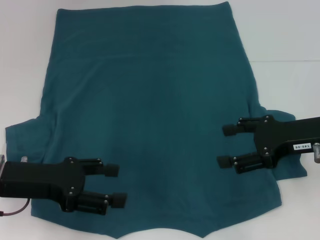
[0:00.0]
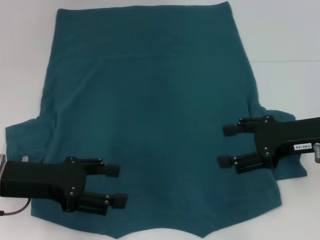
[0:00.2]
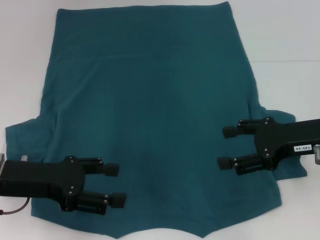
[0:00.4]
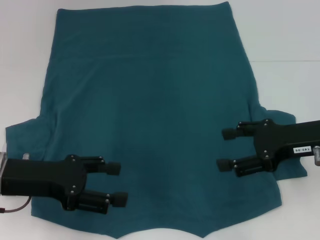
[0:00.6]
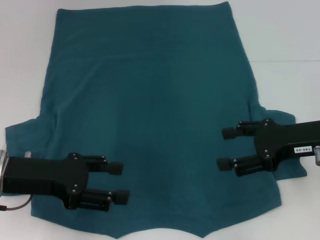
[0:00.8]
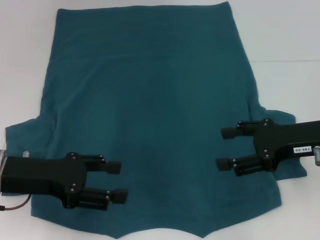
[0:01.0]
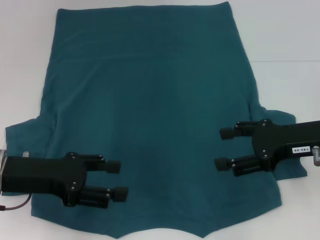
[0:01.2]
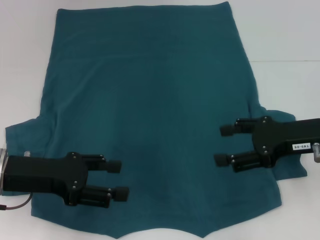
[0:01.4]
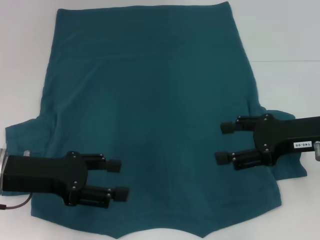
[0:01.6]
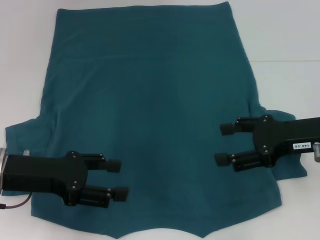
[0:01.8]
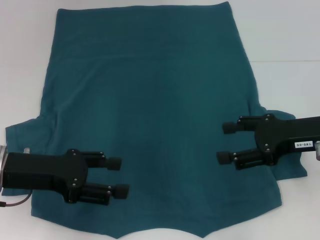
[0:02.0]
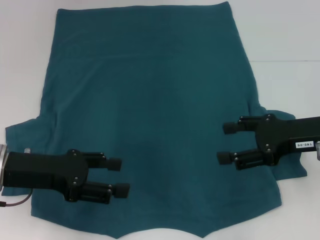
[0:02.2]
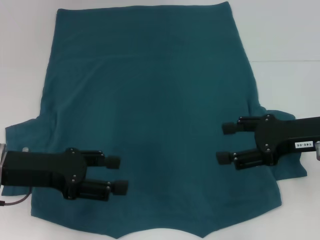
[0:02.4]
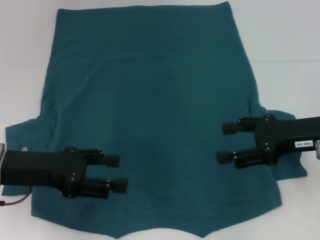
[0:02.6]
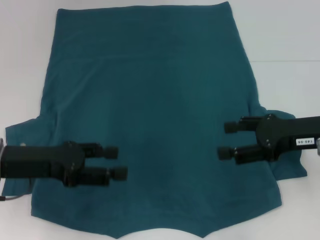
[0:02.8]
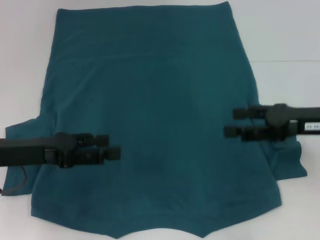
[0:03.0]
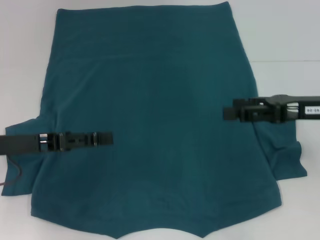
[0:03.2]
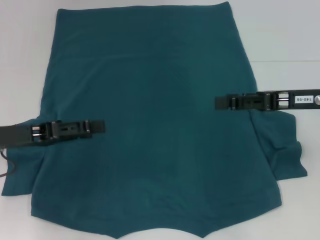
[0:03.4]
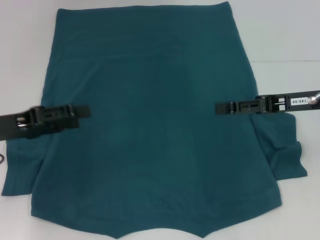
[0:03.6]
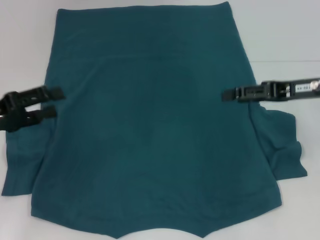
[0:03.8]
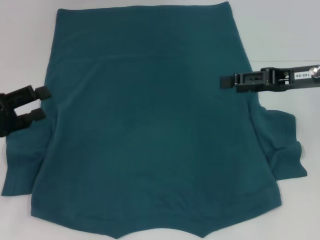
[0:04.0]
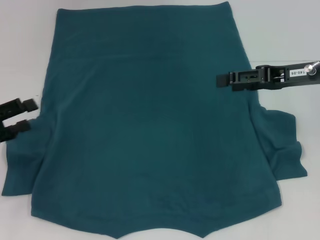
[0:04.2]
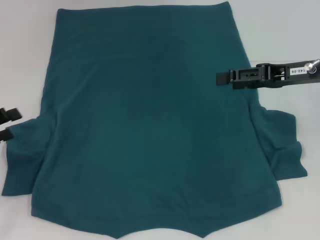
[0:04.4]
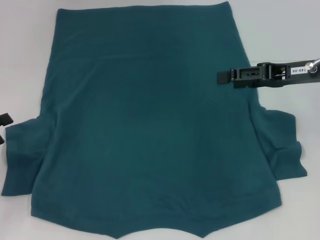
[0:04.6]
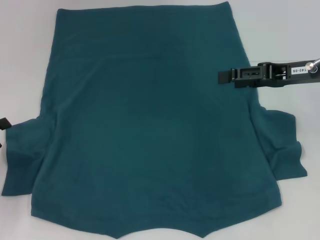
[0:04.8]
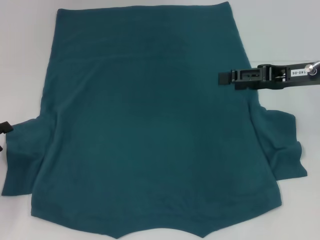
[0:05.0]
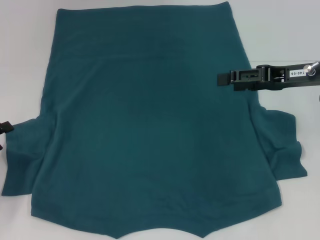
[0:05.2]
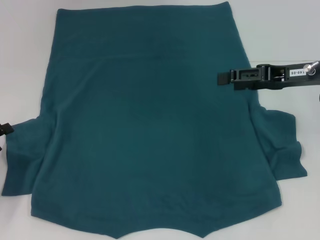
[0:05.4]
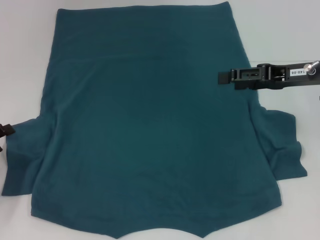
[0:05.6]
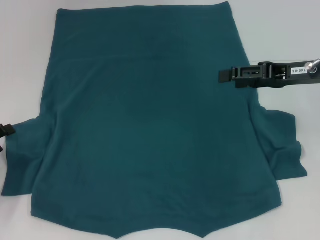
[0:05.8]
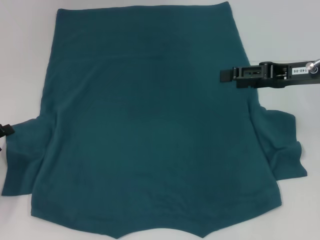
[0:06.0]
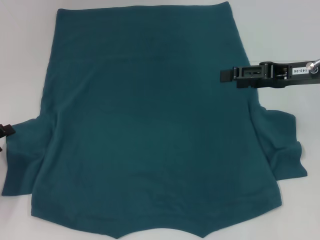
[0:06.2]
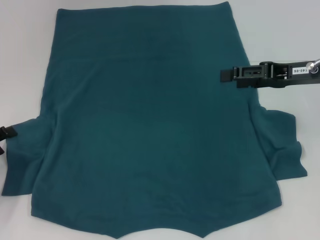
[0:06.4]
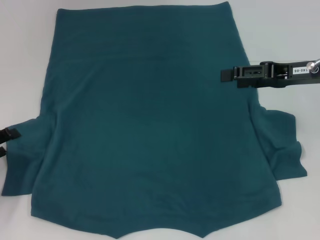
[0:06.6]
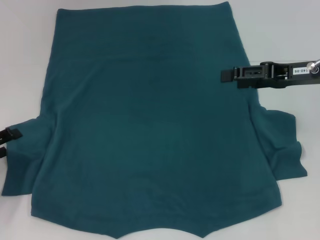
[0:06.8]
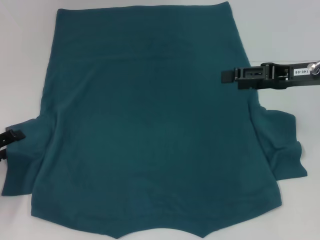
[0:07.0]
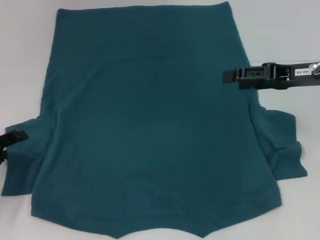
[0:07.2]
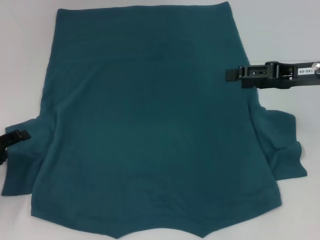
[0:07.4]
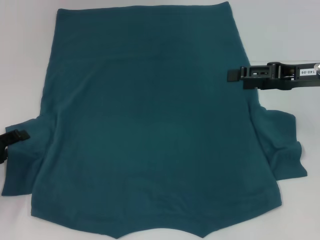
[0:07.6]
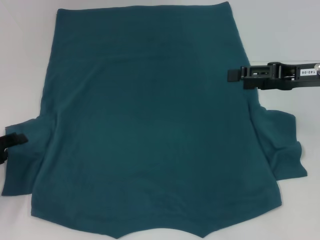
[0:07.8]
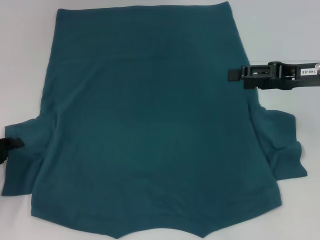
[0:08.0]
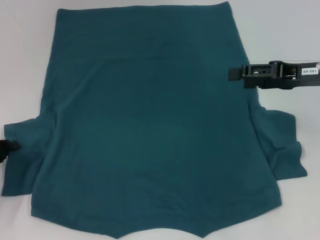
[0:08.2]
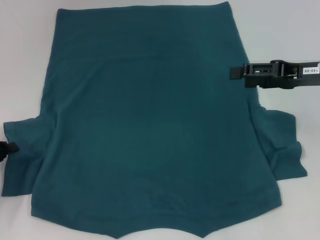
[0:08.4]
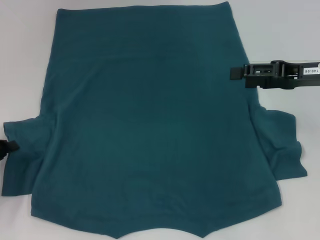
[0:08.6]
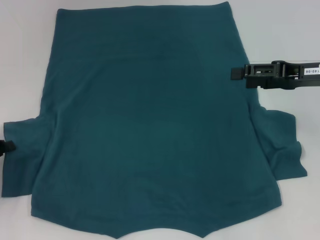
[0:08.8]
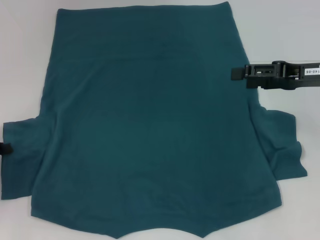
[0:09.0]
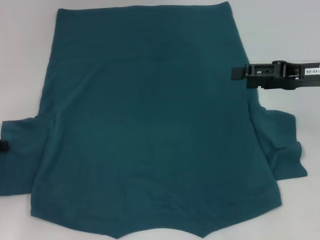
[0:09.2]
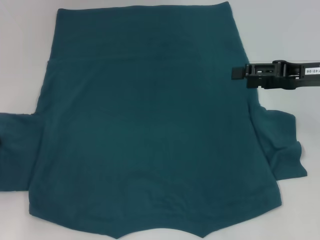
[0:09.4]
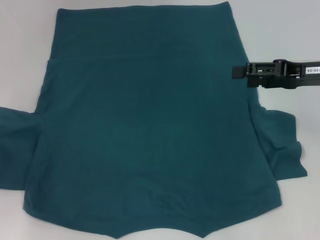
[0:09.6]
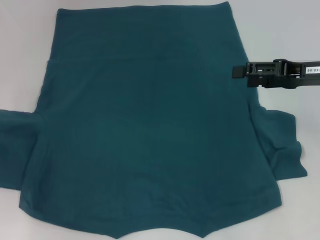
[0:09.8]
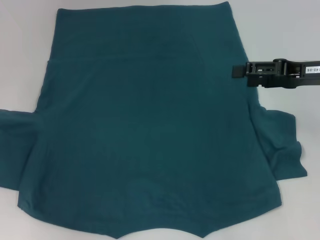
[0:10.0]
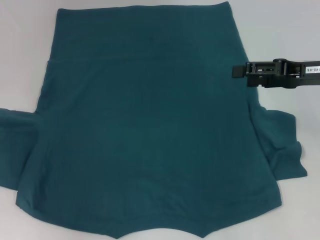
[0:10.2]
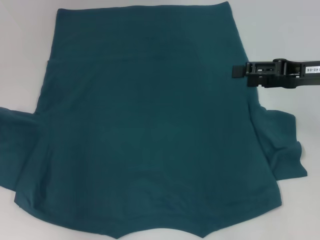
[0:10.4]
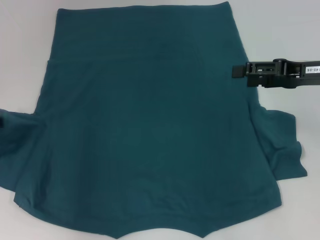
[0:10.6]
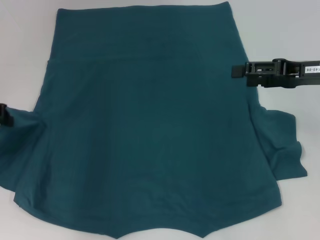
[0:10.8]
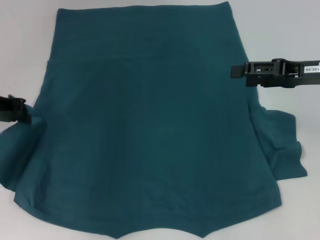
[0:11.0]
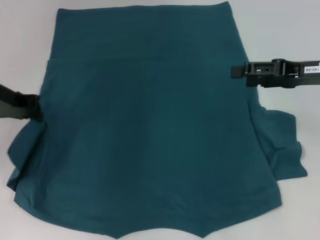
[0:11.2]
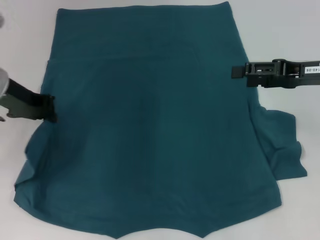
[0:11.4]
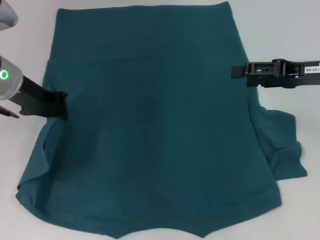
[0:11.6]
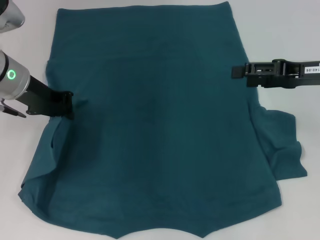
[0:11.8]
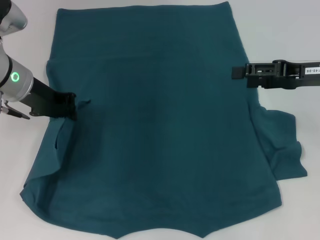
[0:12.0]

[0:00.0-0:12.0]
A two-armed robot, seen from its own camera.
0:00.0 to 0:01.6: Both grippers stay put.
0:01.6 to 0:03.0: There are only small adjustments of the grippers.
0:03.0 to 0:04.4: The left gripper travels to the left by roughly 10 cm, while the right gripper shifts approximately 5 cm forward.
0:04.4 to 0:07.6: The grippers make only small movements.
0:07.6 to 0:09.0: The left gripper closes.
0:09.0 to 0:10.4: The left gripper moves upward and forward, approximately 10 cm.
0:10.4 to 0:12.0: The left gripper travels to the right by approximately 15 cm.

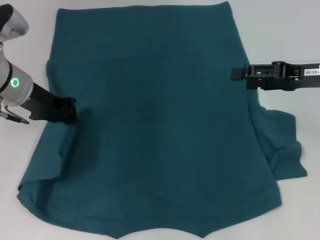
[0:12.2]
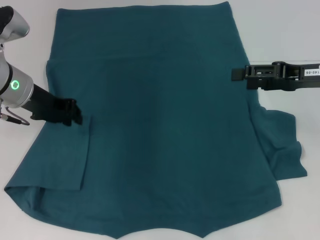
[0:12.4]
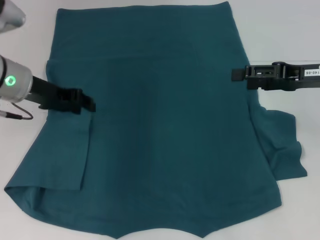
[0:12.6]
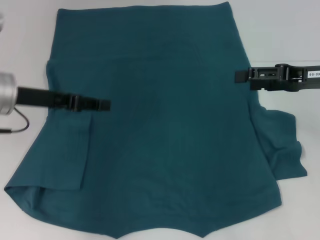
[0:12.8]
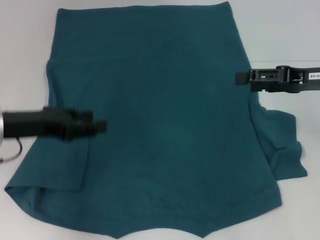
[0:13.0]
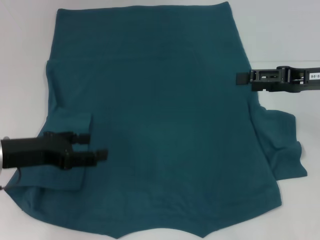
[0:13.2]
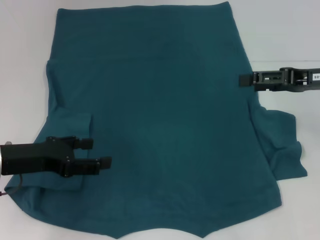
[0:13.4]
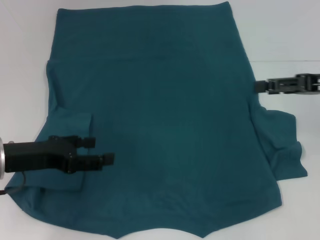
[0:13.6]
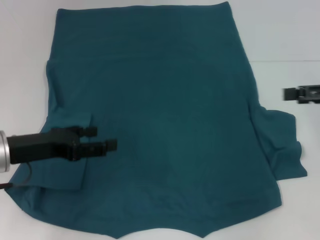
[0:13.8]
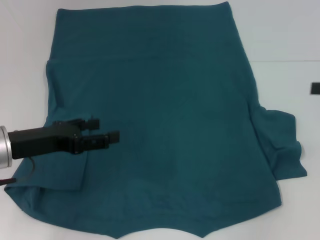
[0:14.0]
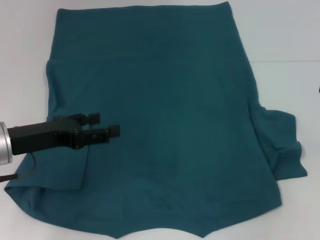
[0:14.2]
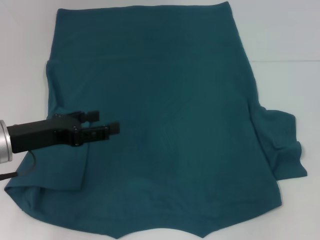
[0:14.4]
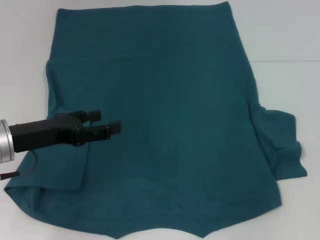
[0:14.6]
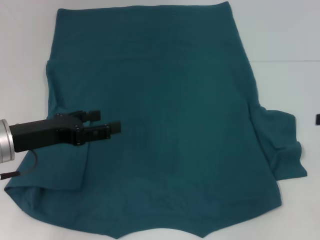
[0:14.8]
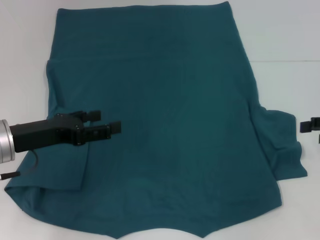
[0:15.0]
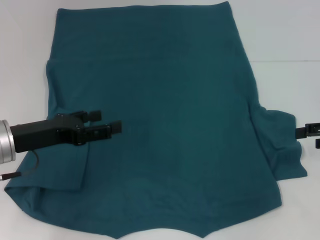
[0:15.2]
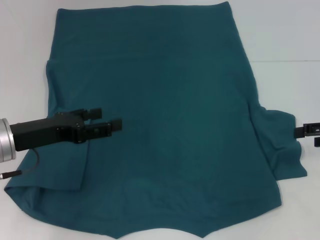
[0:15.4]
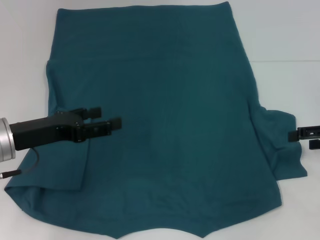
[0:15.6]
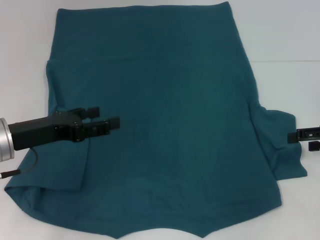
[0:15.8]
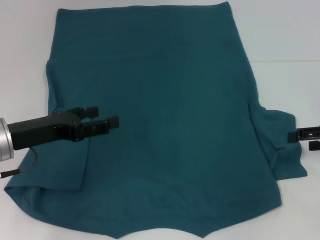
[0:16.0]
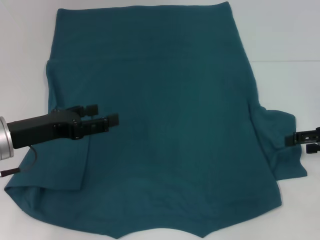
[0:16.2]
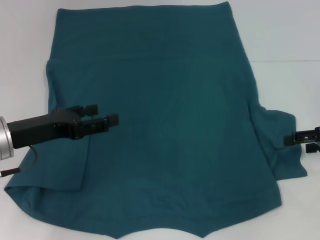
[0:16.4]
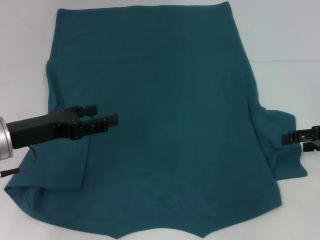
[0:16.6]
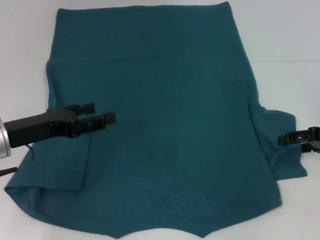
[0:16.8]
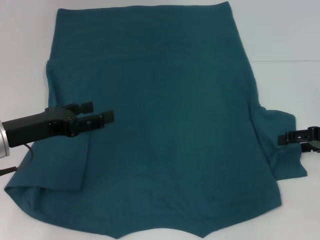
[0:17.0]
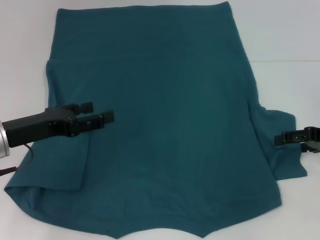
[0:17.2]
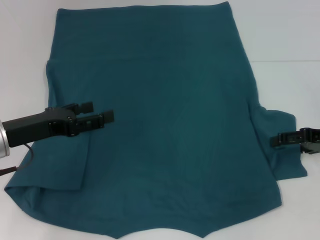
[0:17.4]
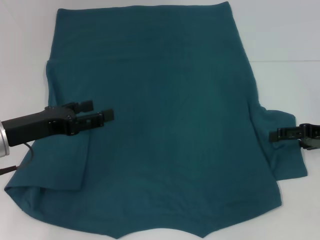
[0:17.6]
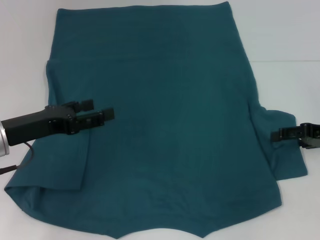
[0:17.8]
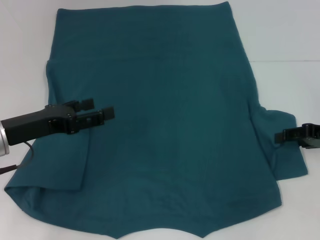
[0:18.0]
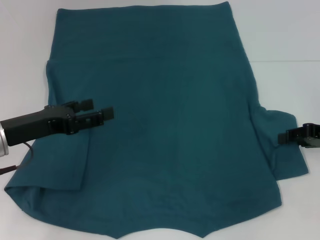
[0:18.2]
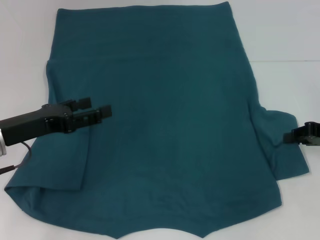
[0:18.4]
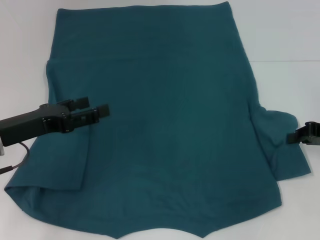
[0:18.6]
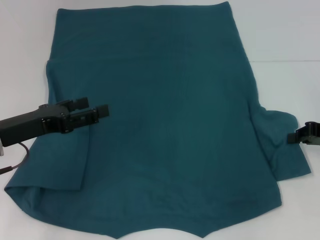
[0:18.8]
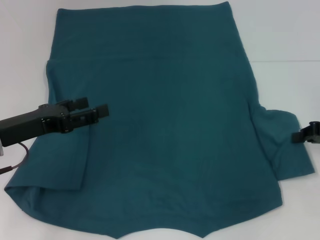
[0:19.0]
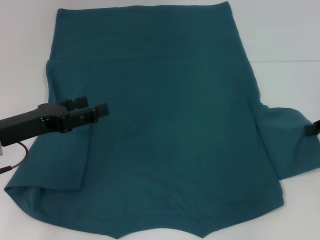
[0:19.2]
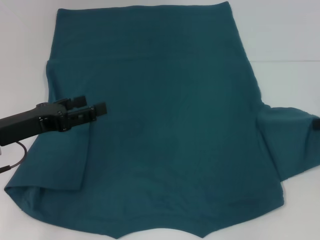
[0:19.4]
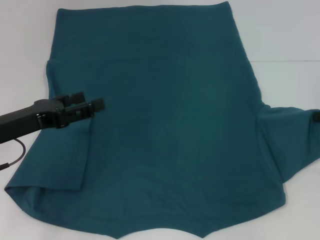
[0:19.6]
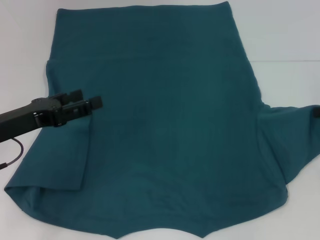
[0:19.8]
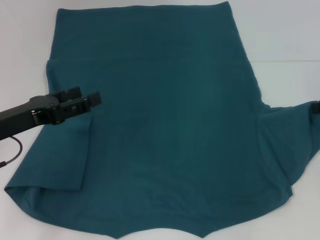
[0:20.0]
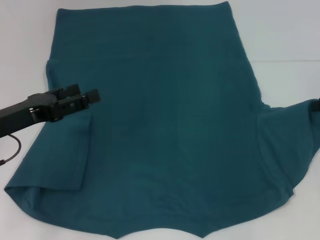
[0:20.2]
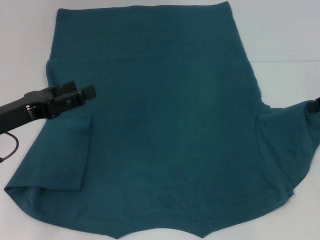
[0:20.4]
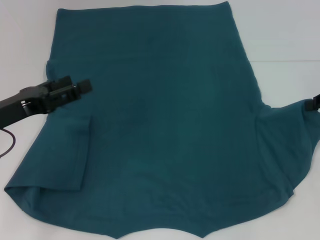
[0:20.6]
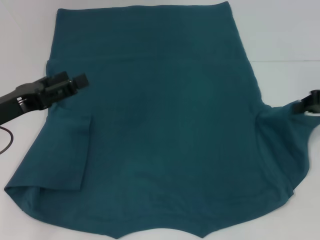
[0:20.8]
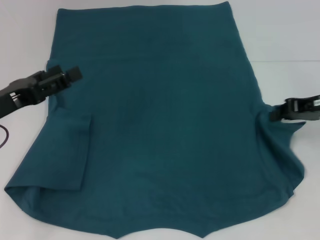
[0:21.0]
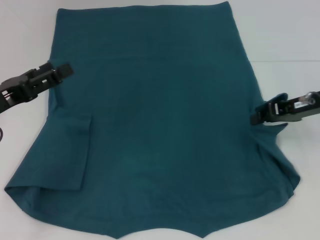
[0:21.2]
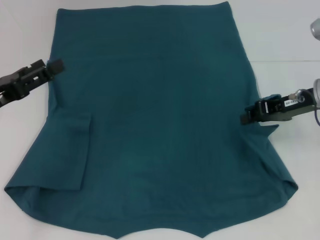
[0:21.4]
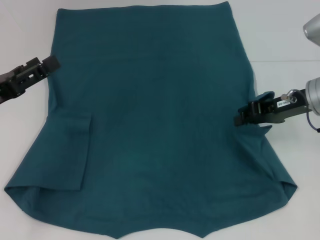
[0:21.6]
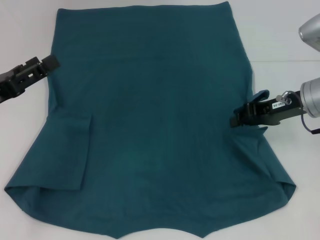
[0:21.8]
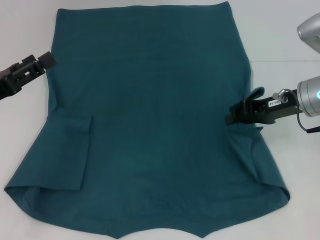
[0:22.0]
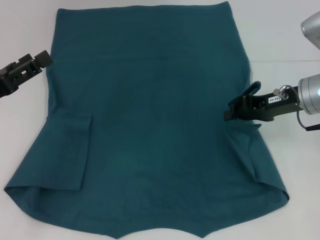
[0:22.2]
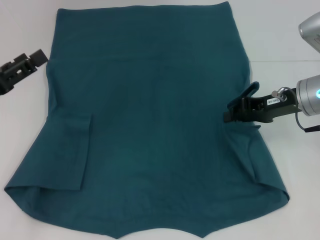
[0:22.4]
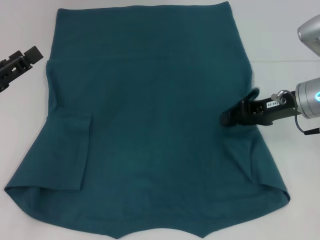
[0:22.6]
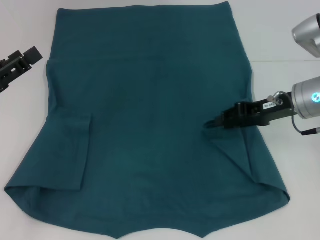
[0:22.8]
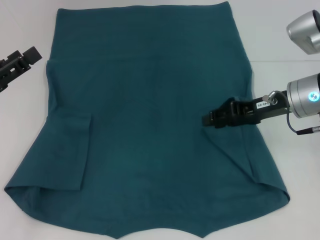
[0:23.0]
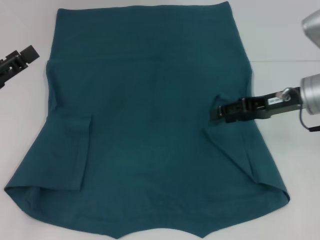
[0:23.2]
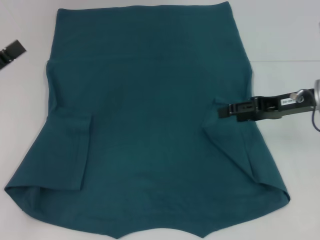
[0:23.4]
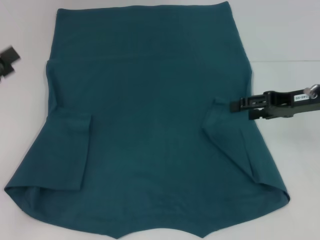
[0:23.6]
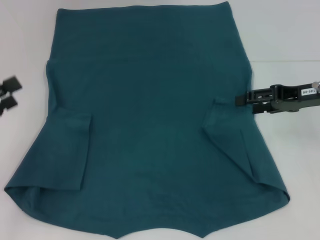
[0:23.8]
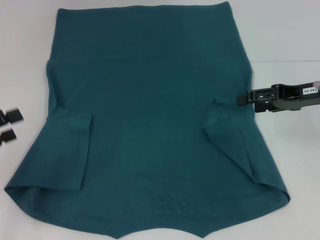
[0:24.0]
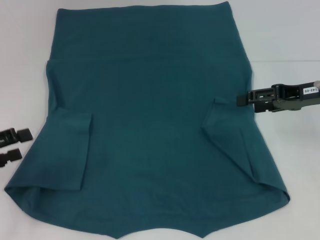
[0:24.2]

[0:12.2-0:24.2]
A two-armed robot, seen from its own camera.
Step, 0:12.8 to 0:23.2: Fold the bottom right sleeve to the right.
0:12.2 to 0:13.8: The left gripper heads backward, covering some 10 cm, and opens up; the right gripper travels to the right by approximately 5 cm.
0:13.8 to 0:15.2: The right gripper moves downward, about 5 cm.
0:15.2 to 0:16.6: There are only small adjustments of the grippers.
0:16.6 to 0:18.2: The right gripper closes.
0:18.2 to 0:19.8: The right gripper changes place by roughly 5 cm, and closes its fingers.
0:19.8 to 0:21.2: The right gripper moves to the left, about 10 cm.
0:21.2 to 0:22.6: The grippers stay close to where they were, moving slightly.
0:22.6 to 0:24.2: The right gripper ends up approximately 5 cm from where it was, and opens up. Meanwhile the left gripper changes place by roughly 5 cm.
